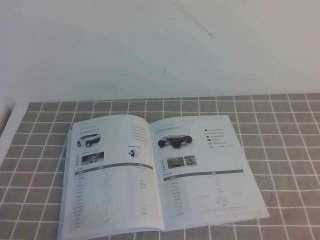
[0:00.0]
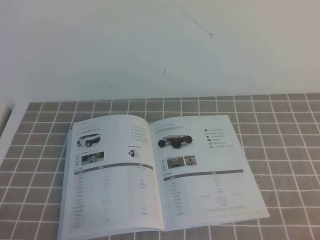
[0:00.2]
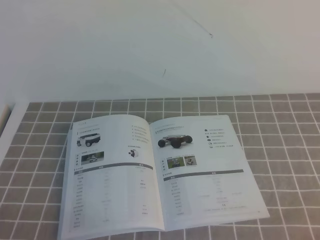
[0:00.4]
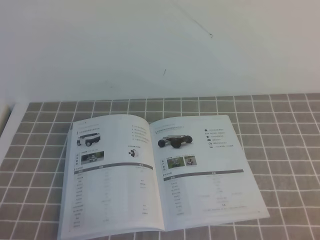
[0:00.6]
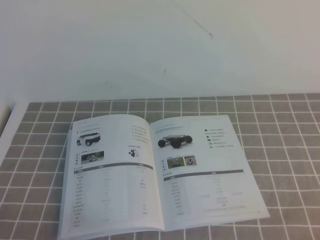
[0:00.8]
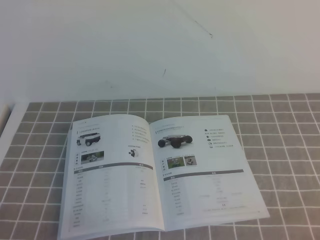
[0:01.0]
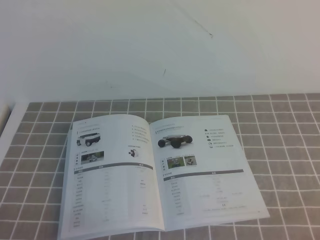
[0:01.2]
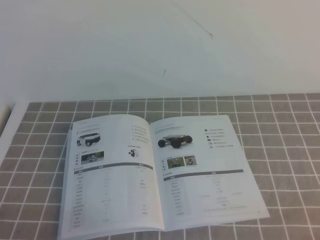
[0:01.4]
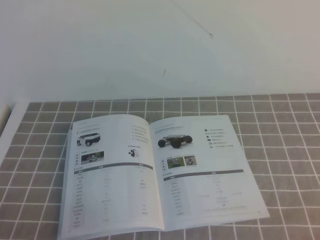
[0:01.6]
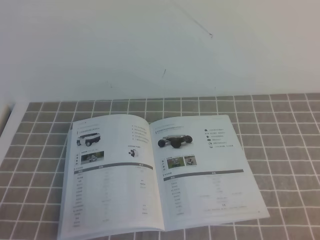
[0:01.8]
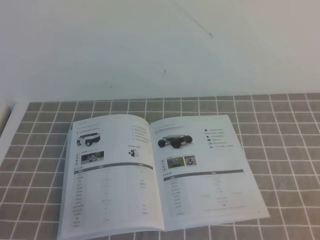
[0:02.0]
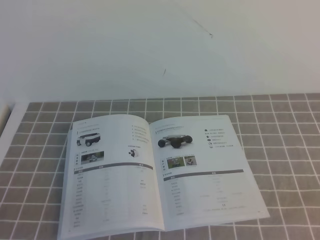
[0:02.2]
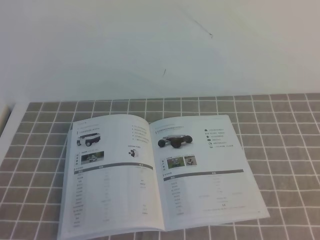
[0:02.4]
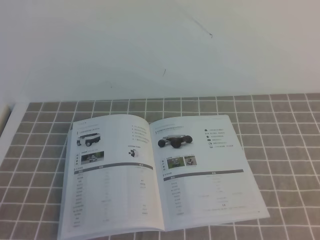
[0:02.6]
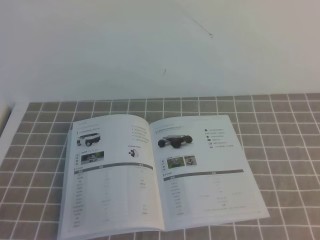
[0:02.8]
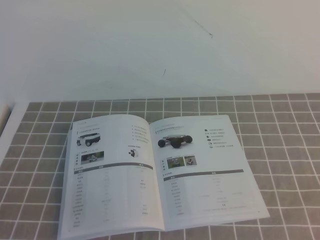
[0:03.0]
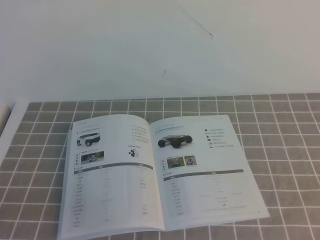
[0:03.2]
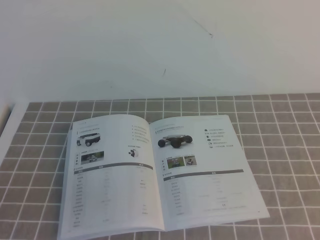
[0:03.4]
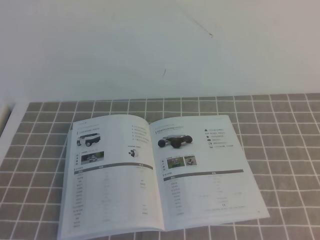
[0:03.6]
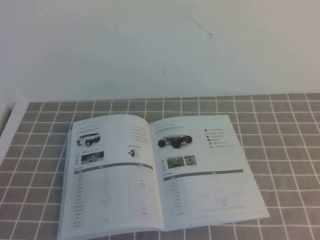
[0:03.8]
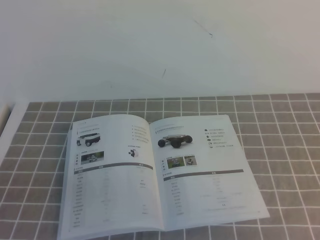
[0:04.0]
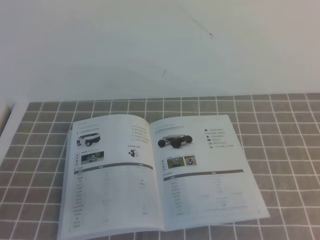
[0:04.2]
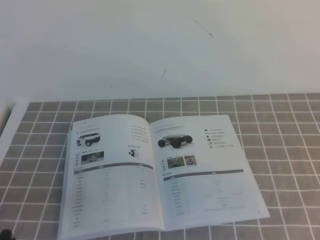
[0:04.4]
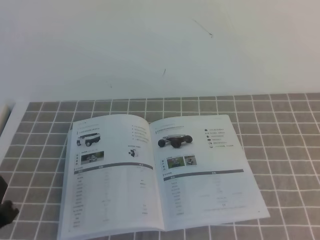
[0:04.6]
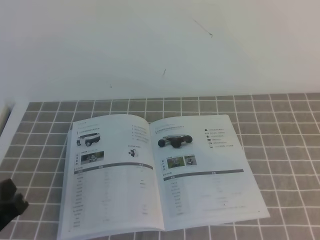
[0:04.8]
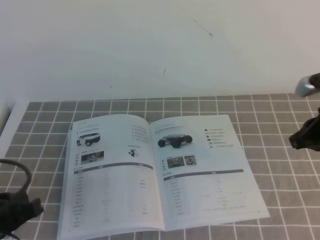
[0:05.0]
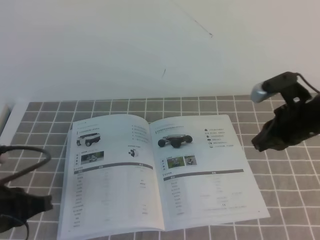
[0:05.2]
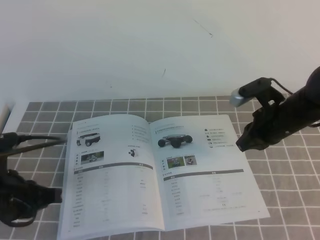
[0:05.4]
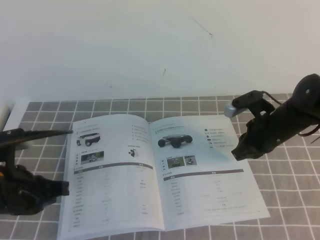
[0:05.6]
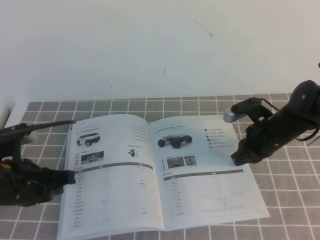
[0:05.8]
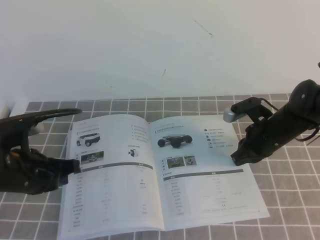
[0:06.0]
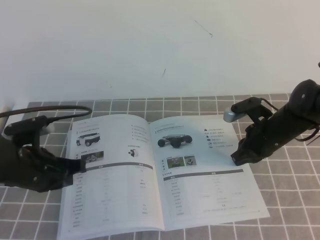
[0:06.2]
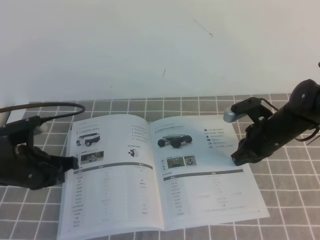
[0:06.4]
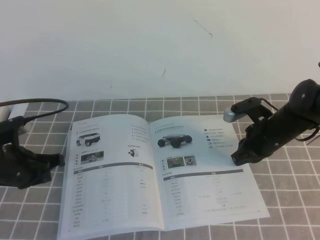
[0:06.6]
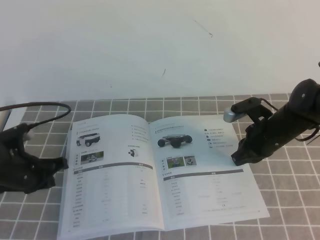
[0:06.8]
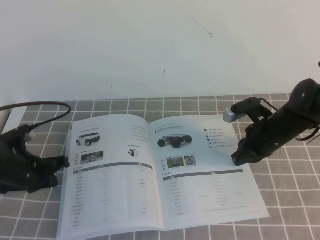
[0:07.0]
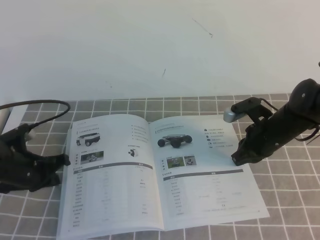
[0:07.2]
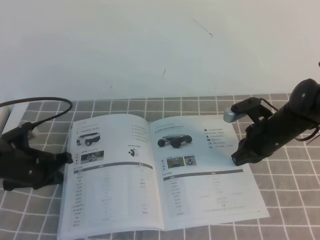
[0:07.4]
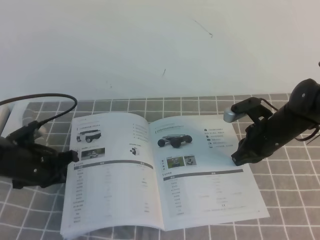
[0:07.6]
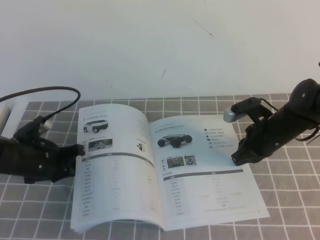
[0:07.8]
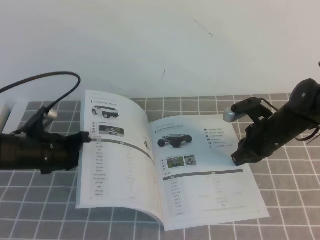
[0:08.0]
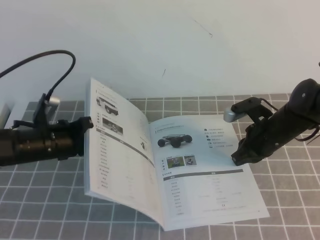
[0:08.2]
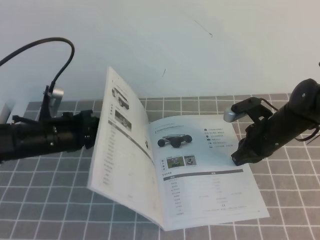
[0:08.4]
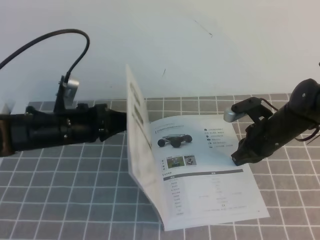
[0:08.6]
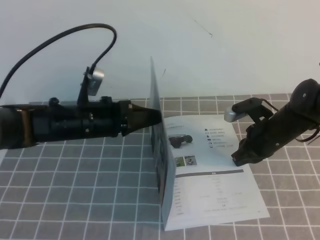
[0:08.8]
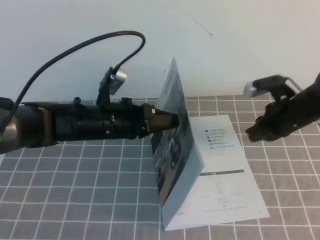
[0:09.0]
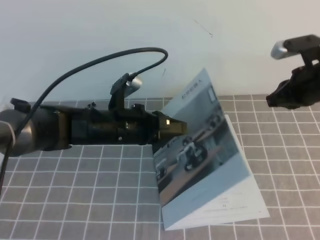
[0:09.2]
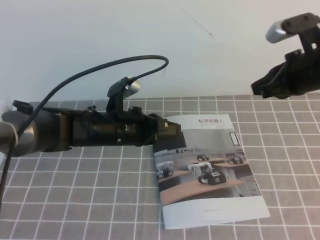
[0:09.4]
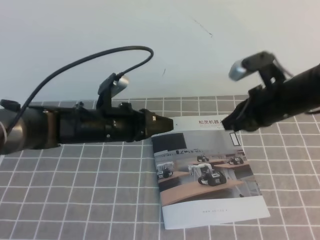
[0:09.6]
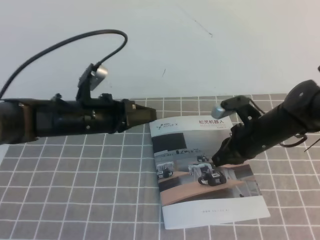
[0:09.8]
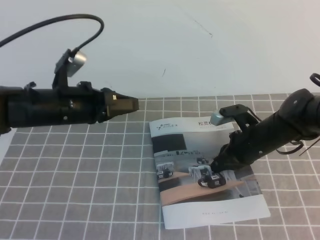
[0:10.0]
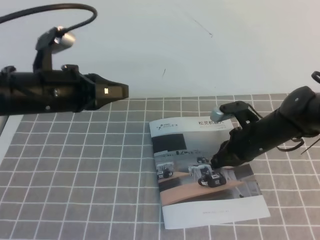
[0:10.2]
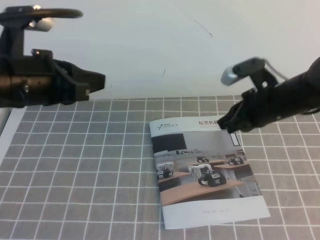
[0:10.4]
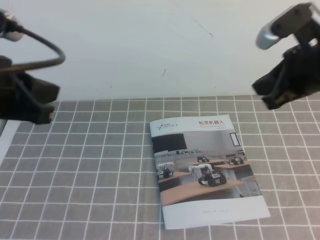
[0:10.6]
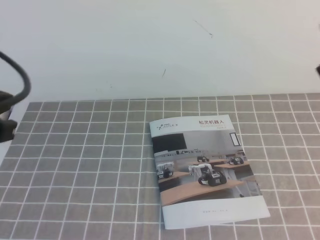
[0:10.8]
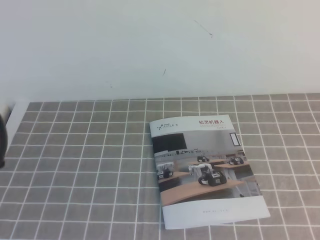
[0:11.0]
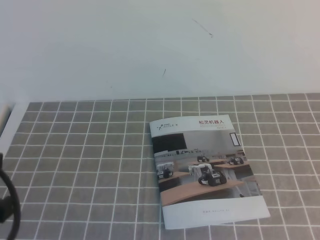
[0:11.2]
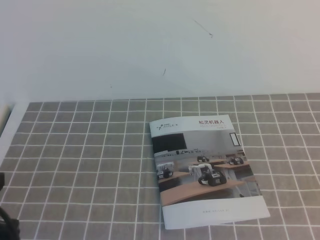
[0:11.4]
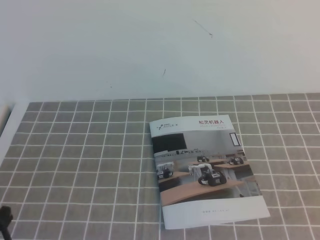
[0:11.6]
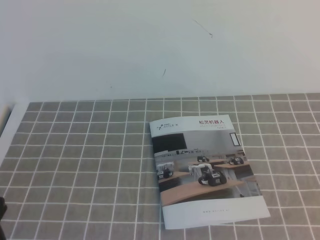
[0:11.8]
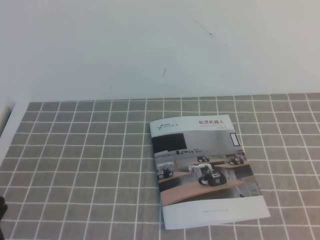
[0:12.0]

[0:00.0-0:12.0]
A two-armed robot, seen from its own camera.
Task of the whole recording: on the grey tablecloth, hold the book with one hand and close it with the other.
0:04.4 to 0:06.0: The right gripper is displaced forward, downward and to the left by some 30 cm; the left gripper heads forward, covering approximately 15 cm.
0:06.0 to 0:07.6: The left gripper travels forward and downward by about 10 cm.
0:07.6 to 0:09.0: The right gripper ends up some 5 cm from where it was. The left gripper shifts some 15 cm to the right and upward.
0:09.0 to 0:10.4: The left gripper shifts some 15 cm upward, to the left and backward. Meanwhile the right gripper swings up and down, roughly 15 cm each way, with 2 reversals.
0:10.4 to 0:12.0: The left gripper goes roughly 20 cm backward and to the left, while the right gripper is displaced backward and to the right by approximately 35 cm.

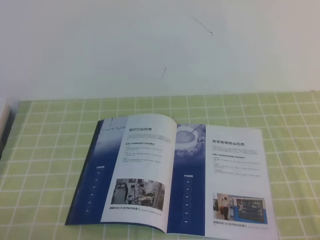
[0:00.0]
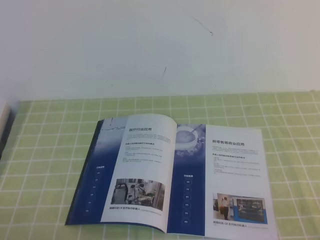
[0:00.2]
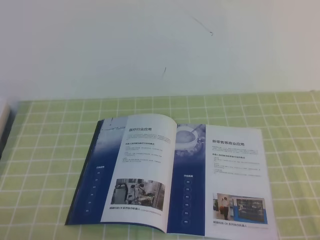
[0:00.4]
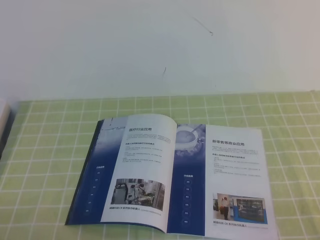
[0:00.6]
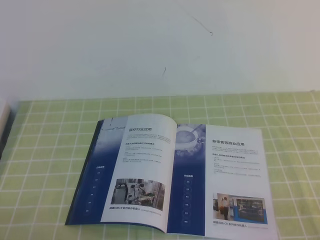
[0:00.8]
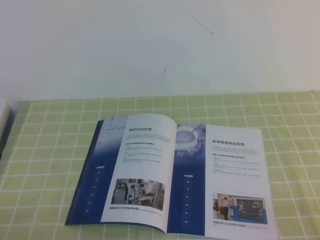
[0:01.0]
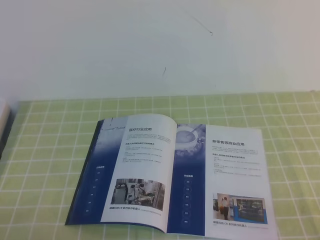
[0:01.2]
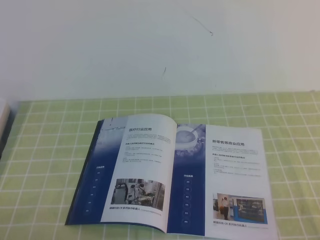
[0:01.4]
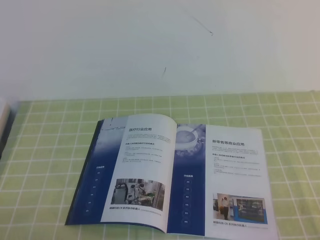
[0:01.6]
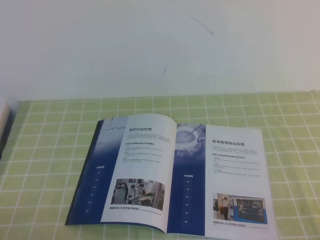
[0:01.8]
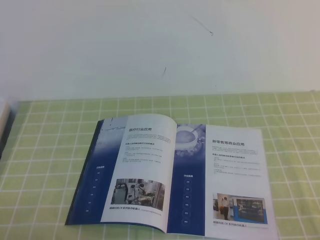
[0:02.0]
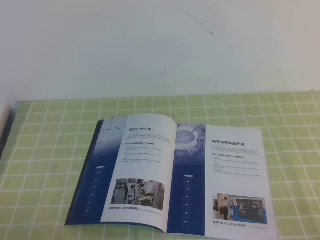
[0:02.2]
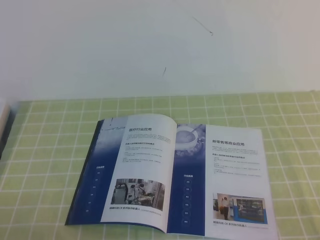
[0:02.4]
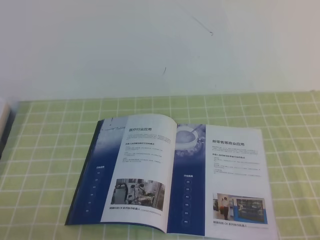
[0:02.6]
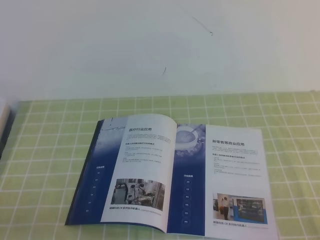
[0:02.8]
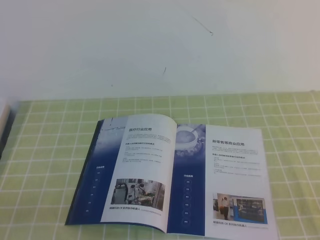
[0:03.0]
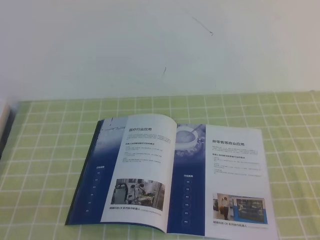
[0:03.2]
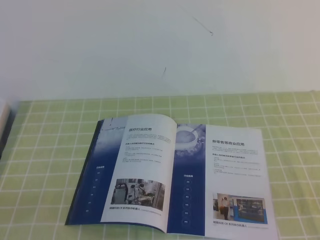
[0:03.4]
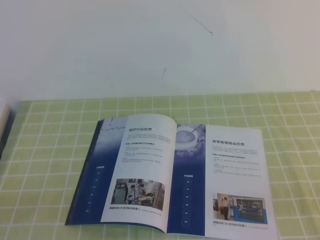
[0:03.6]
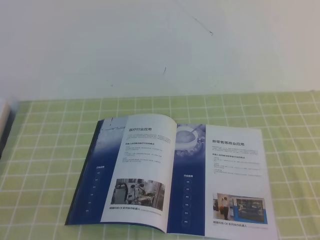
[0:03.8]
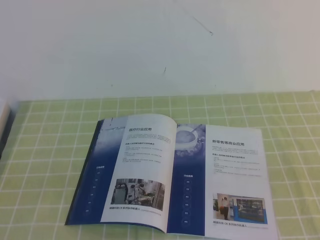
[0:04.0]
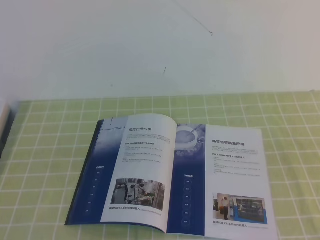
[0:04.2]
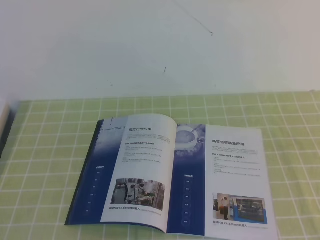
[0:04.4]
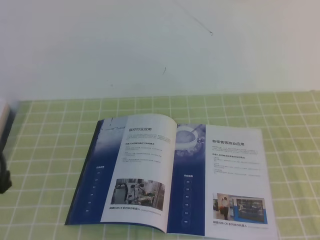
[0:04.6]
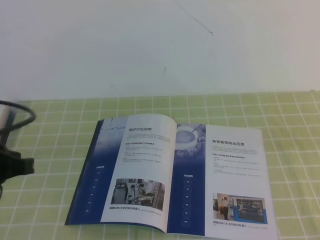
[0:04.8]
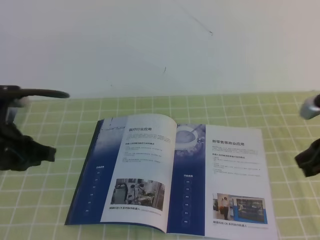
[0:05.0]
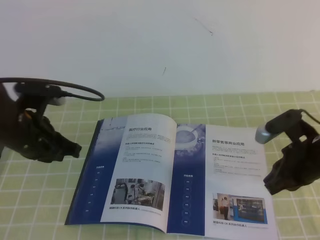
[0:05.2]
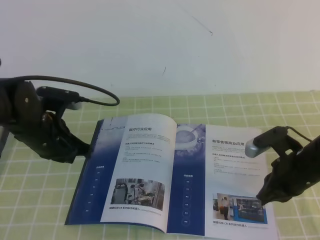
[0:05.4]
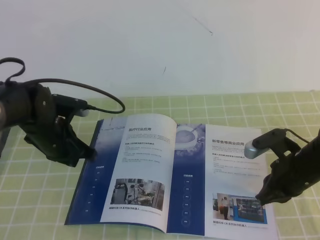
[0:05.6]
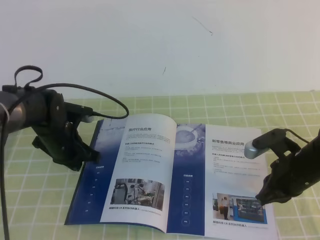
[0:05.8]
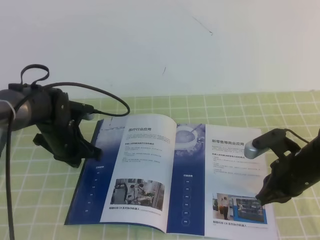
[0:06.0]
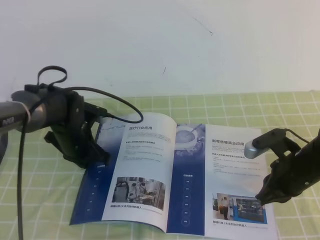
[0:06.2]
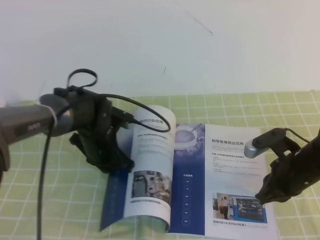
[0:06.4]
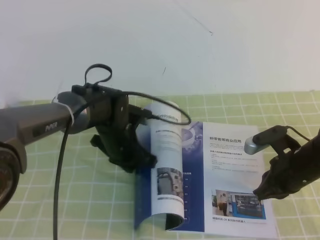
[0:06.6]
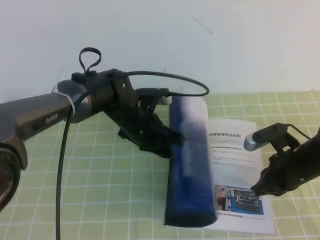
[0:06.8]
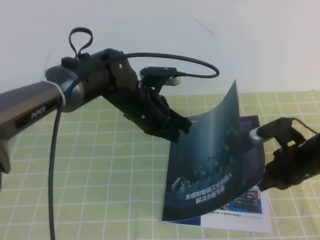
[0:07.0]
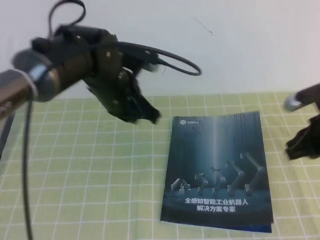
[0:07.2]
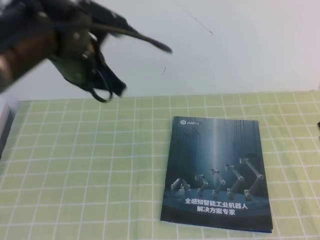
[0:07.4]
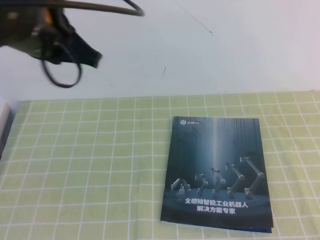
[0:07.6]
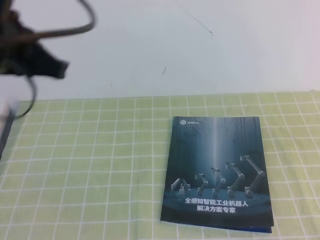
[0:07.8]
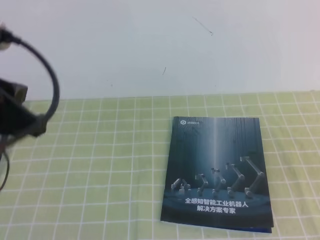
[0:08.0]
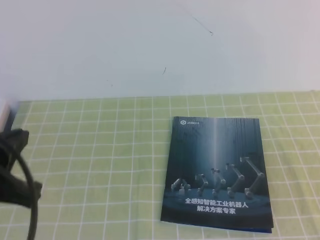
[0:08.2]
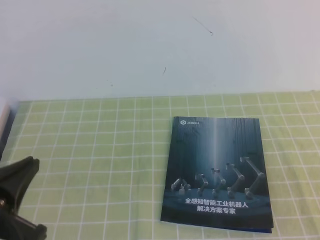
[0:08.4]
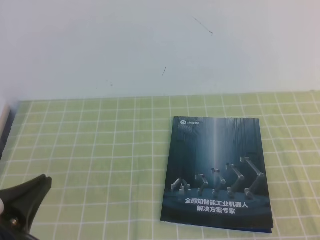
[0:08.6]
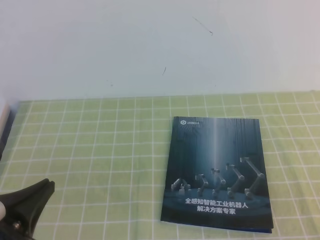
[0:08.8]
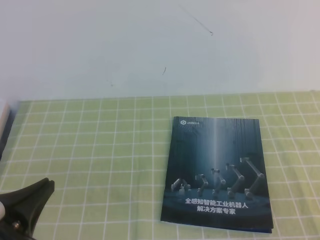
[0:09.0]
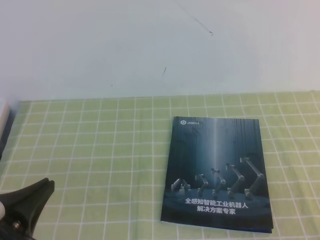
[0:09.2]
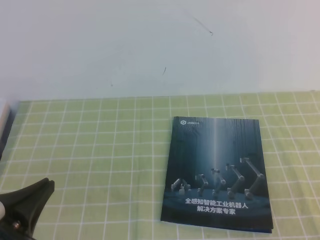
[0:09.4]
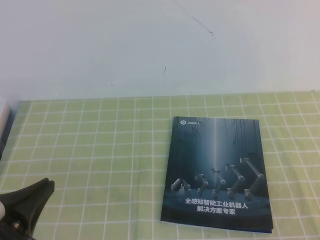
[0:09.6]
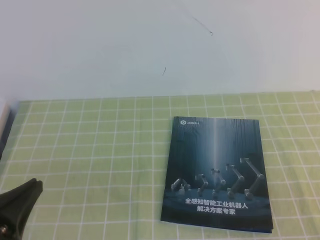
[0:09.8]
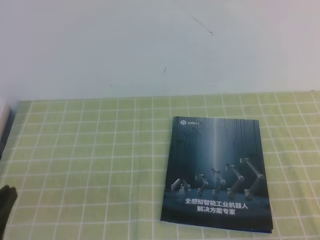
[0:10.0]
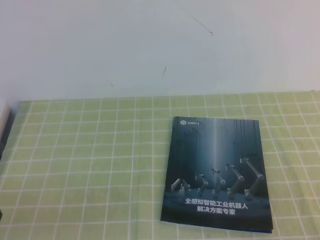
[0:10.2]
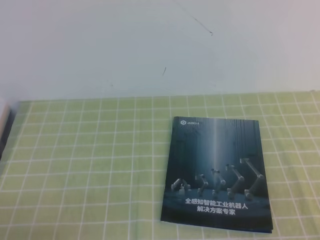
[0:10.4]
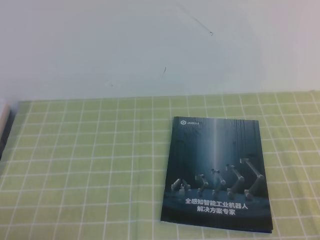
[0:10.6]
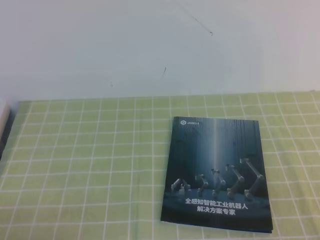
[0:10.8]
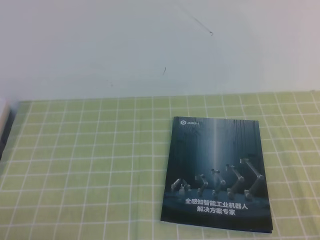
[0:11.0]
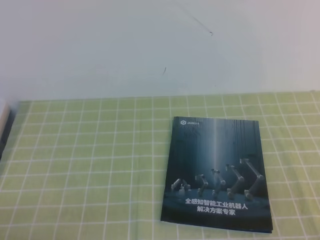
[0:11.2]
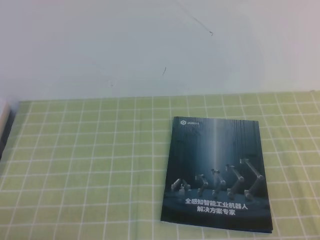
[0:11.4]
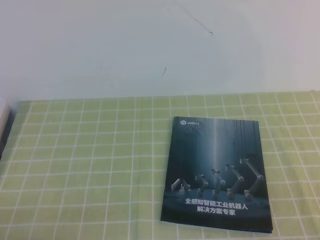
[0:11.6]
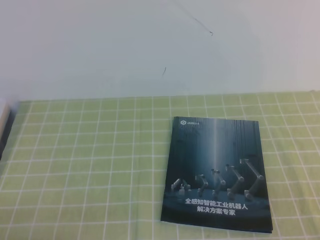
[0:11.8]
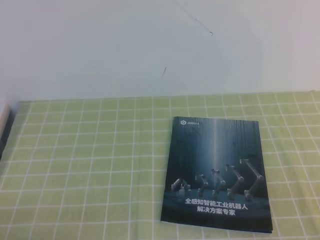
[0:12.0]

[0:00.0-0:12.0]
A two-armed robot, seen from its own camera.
Task of the whole recording: on the green tablecloth, hold the book with one hand and close it with the other.
0:04.4 to 0:06.0: The left gripper goes approximately 35 cm forward and downward. Meanwhile the right gripper travels forward, downward and to the left by approximately 30 cm.
0:06.0 to 0:07.6: The left gripper goes some 20 cm upward. The right gripper shifts approximately 15 cm upward and to the right.
0:07.6 to 0:09.0: The left gripper moves backward and downward, roughly 25 cm. The right gripper moves backward, approximately 25 cm.
0:09.0 to 0:10.4: The left gripper moves some 10 cm.
